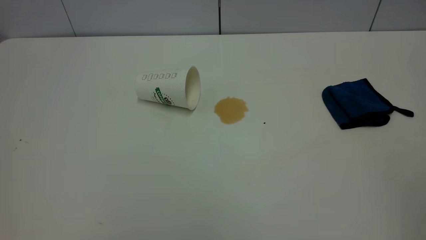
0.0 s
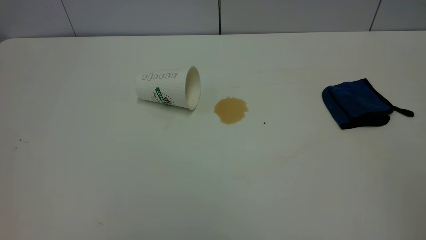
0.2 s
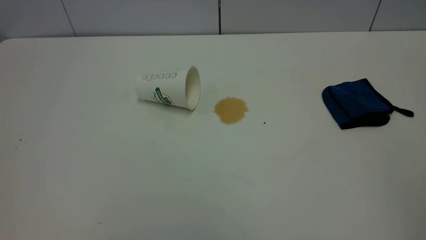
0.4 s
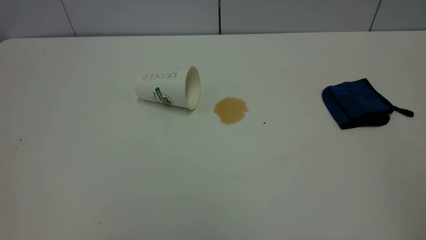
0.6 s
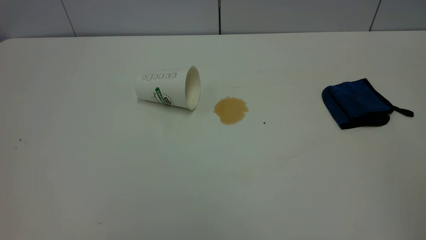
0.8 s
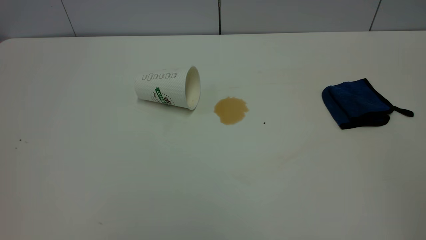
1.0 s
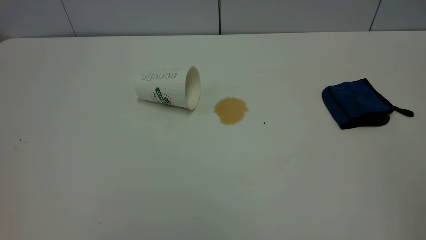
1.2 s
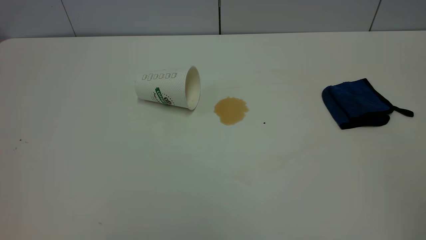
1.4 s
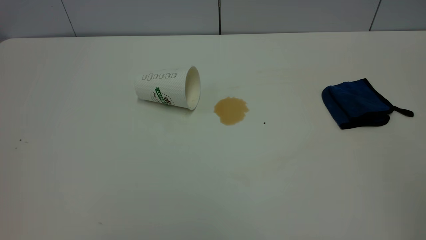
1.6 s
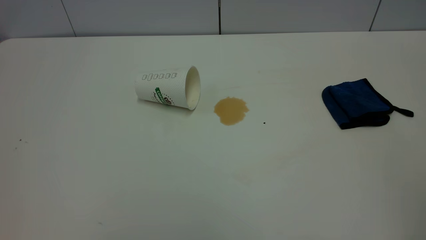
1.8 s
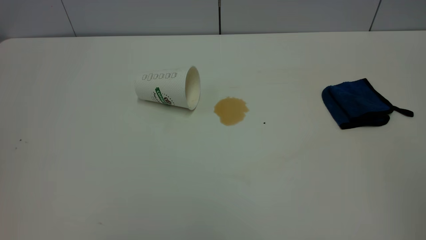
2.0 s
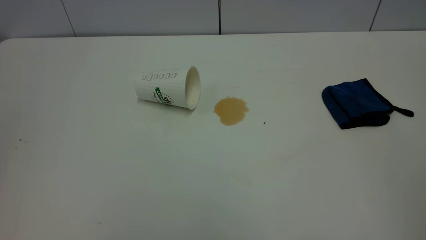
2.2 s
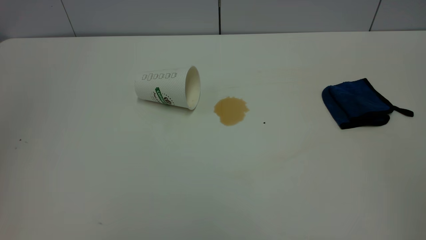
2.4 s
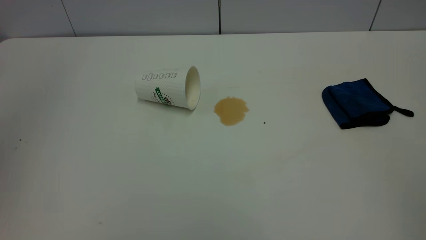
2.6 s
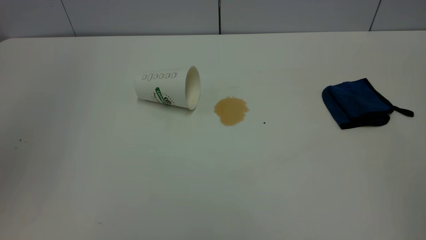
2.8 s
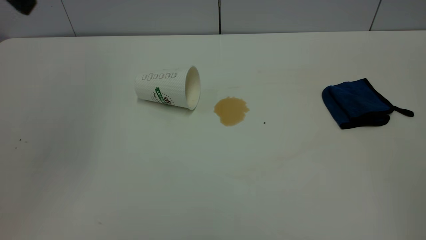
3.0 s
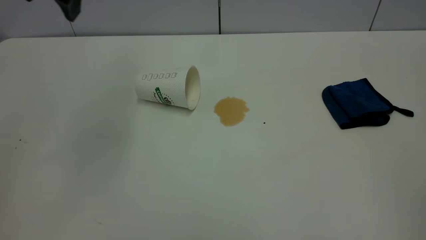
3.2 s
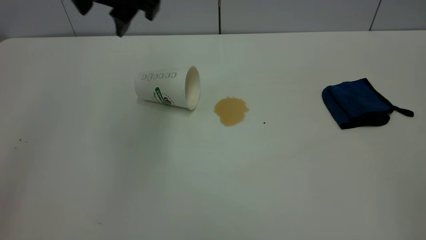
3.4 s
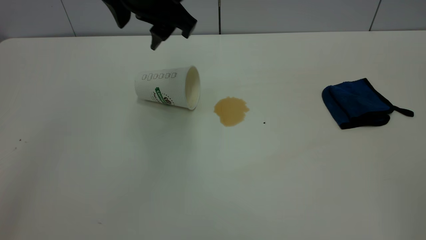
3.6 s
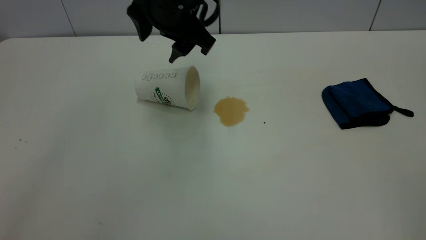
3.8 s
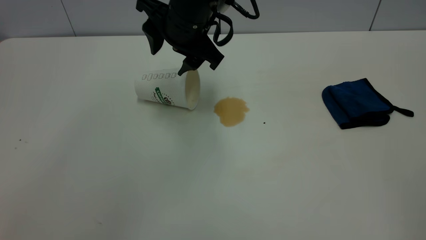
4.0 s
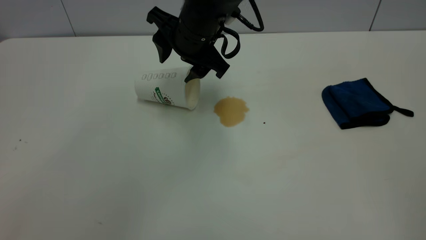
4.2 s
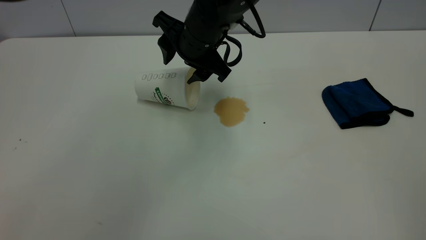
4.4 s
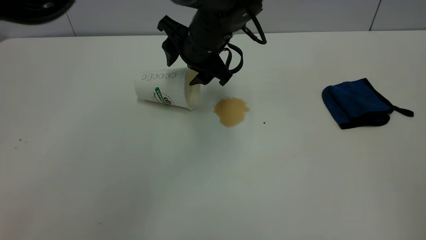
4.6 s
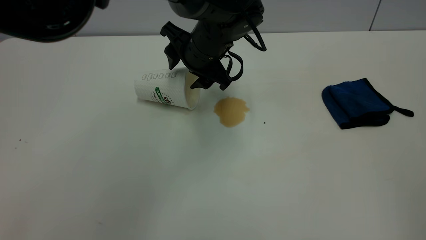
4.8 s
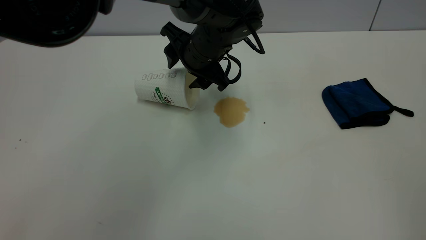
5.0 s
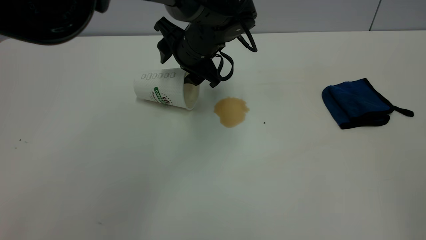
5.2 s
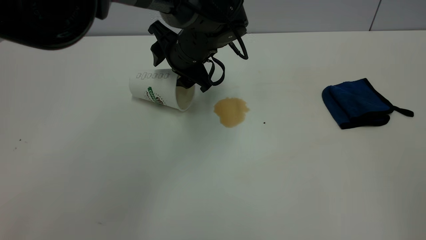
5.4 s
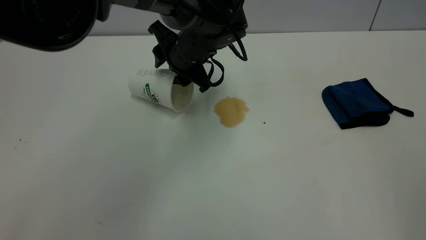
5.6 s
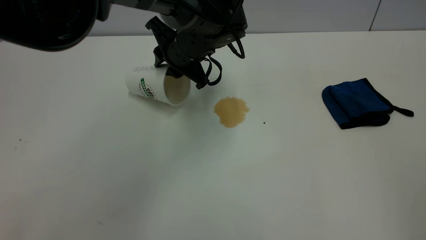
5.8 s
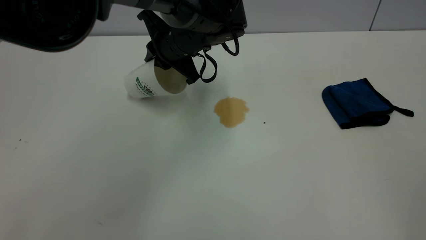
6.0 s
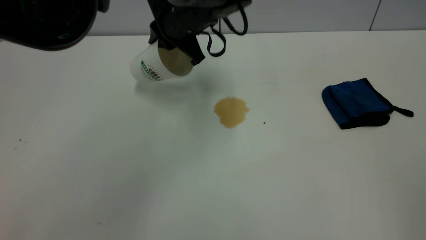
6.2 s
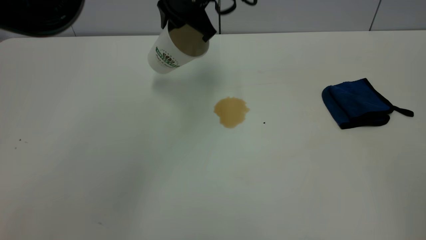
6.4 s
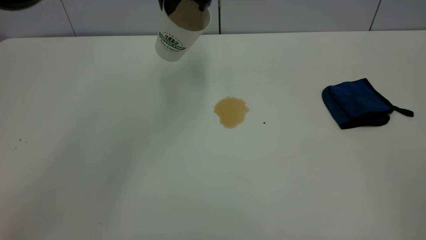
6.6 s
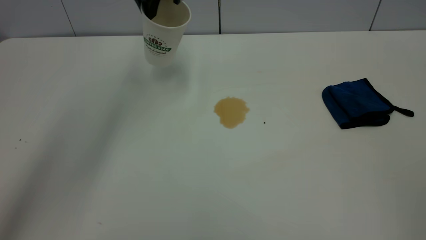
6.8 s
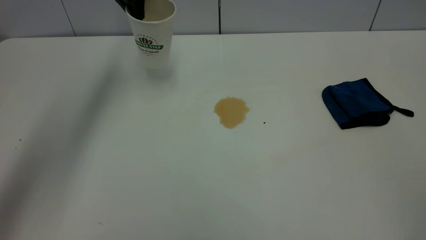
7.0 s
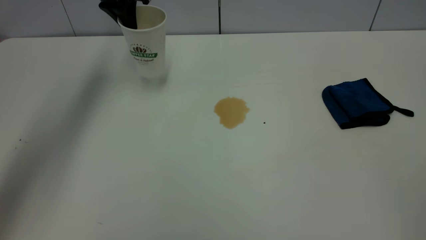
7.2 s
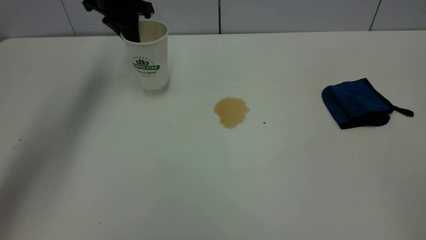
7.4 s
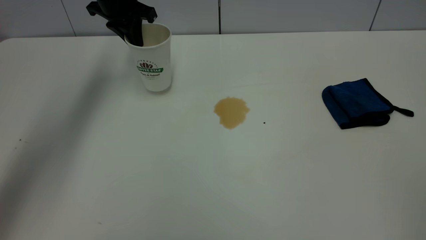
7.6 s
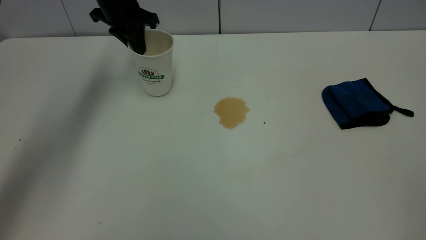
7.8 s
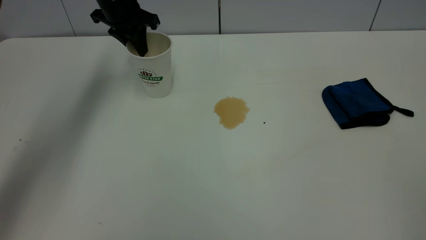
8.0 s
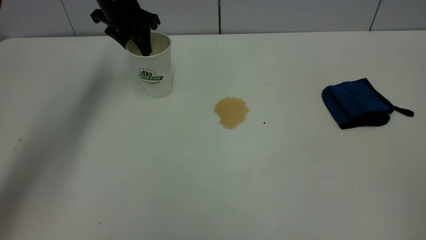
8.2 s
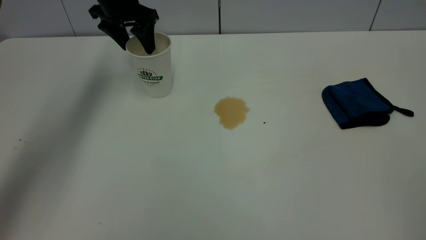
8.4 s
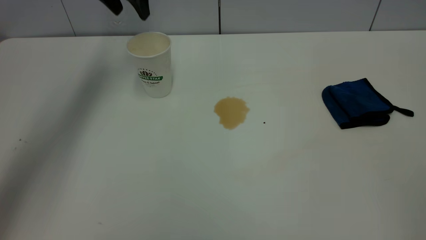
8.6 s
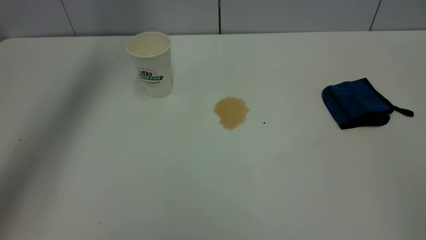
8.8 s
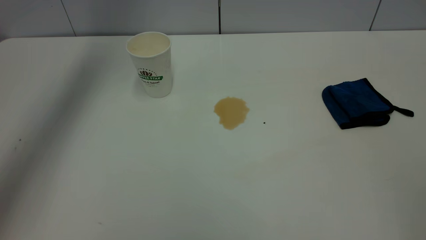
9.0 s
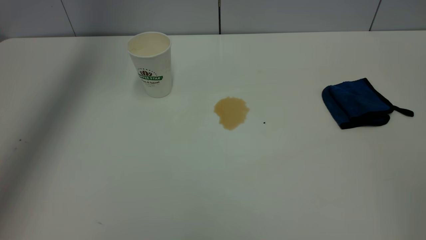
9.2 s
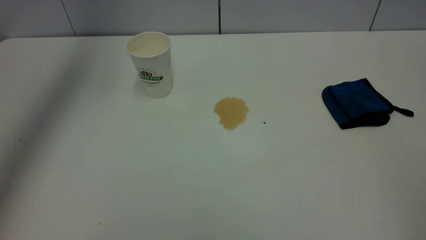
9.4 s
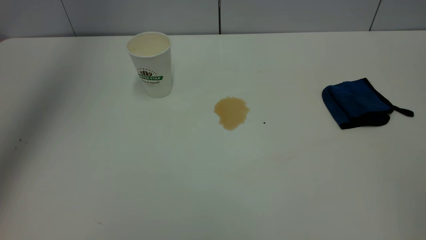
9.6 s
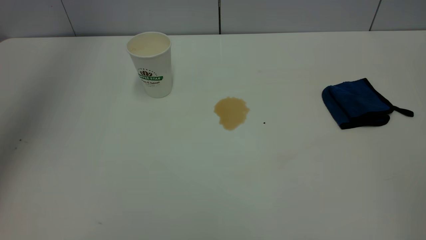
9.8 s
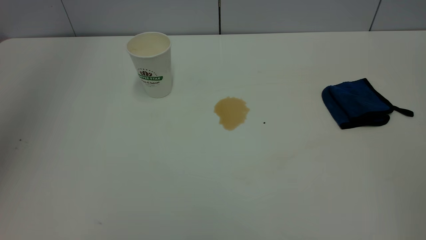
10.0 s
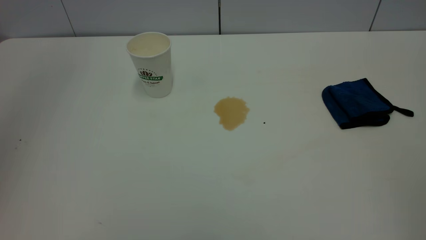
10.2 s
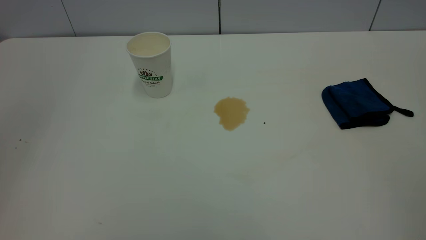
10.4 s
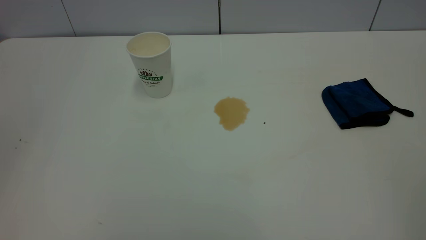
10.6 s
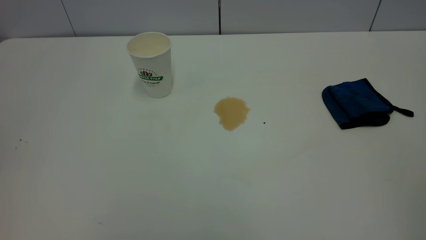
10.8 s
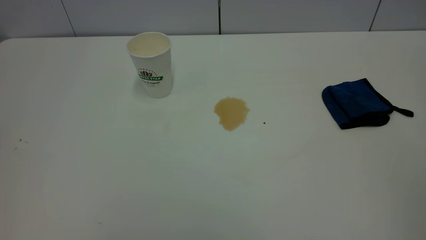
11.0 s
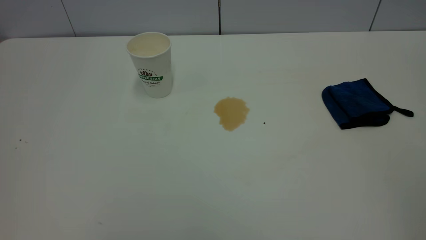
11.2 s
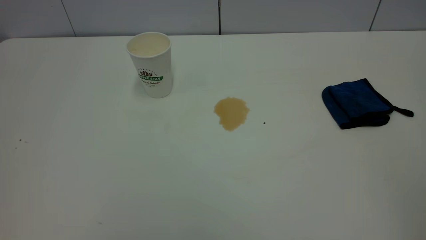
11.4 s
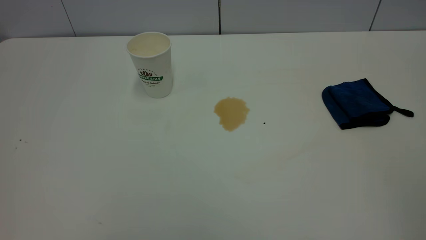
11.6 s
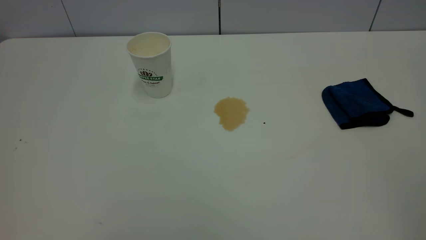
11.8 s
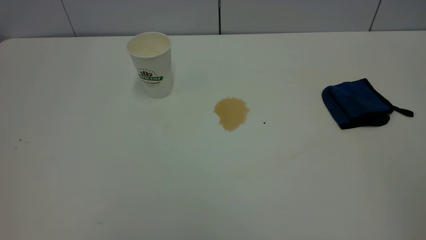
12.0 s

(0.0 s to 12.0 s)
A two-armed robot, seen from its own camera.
Task of the whole recording: the left gripper pick up the fallen cup and place it upright, the right gripper grasp the blue rag and wipe the tea stain on the table, the right gripper put the blue rag back in its original position.
Step, 0.0 s - 8.4 s: Stand the paper cup upright.
0.0 s - 1.6 s: Both grippers stay about where they are.
3.0 s - 4.4 s: The left gripper shifts some 30 cm to the right, downward and forward.
4.4 s - 6.0 s: The left gripper closes its fingers.
6.0 s - 7.6 s: The left gripper goes about 20 cm to the left and forward.
7.6 s - 9.0 s: The left gripper heads upward, covering roughly 20 cm, and opens up.
9.0 s - 10.4 s: The left gripper moves backward, some 35 cm, and closes up.

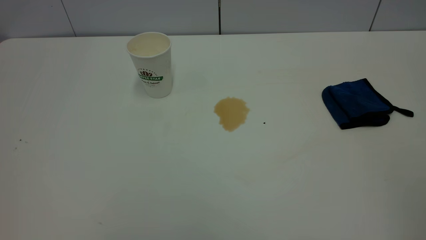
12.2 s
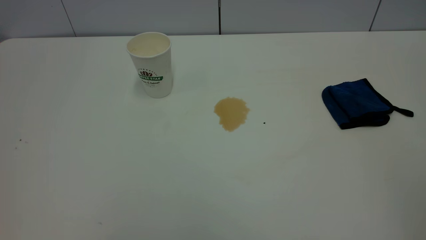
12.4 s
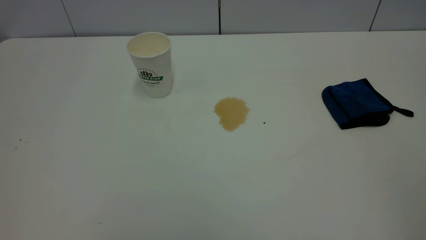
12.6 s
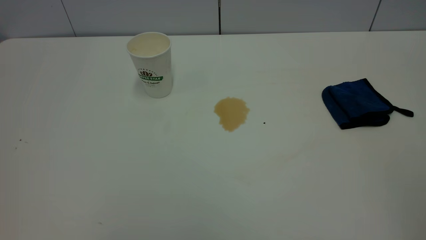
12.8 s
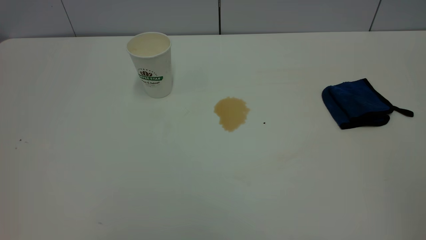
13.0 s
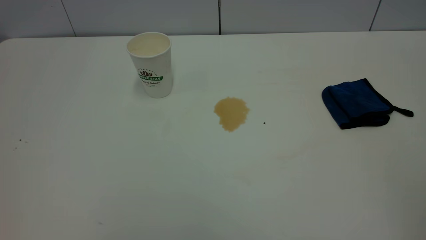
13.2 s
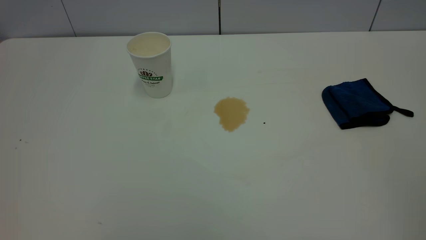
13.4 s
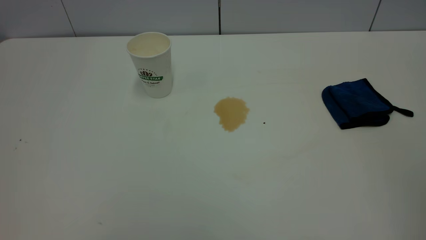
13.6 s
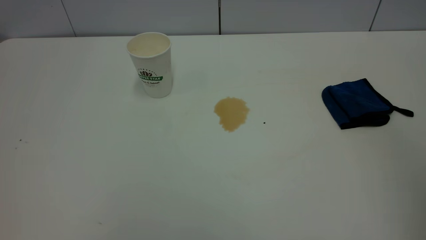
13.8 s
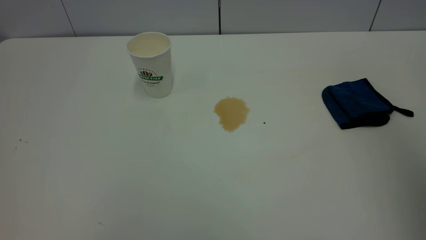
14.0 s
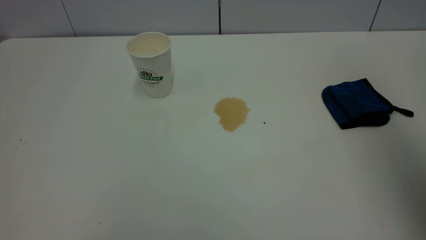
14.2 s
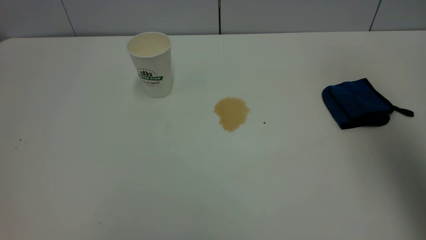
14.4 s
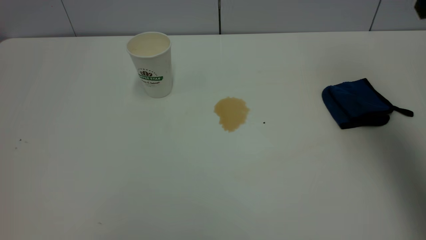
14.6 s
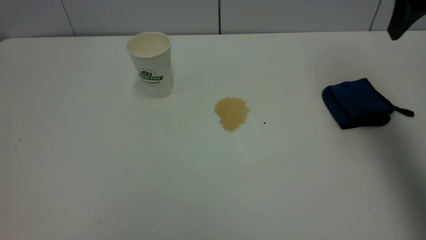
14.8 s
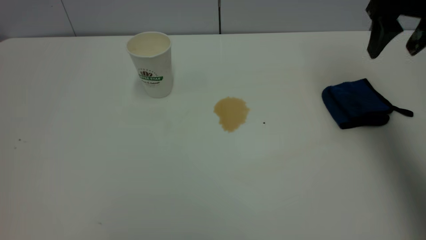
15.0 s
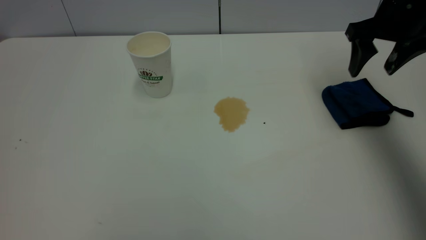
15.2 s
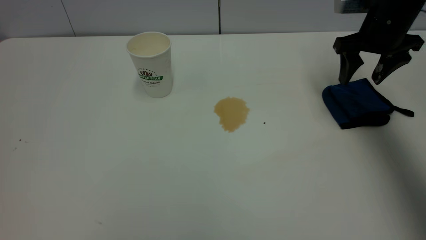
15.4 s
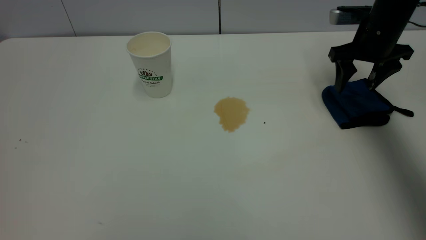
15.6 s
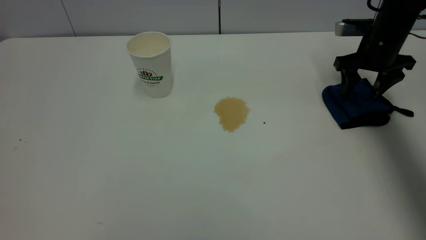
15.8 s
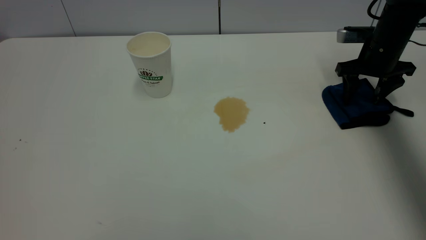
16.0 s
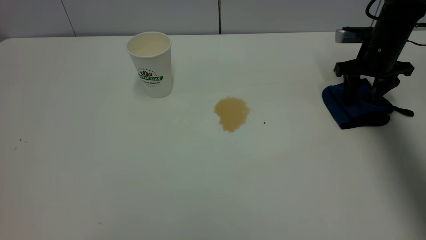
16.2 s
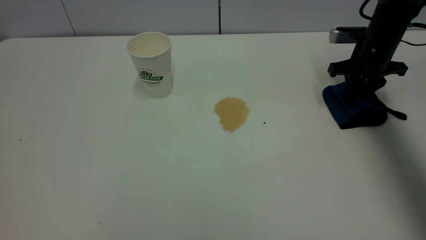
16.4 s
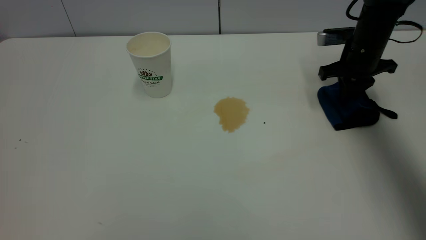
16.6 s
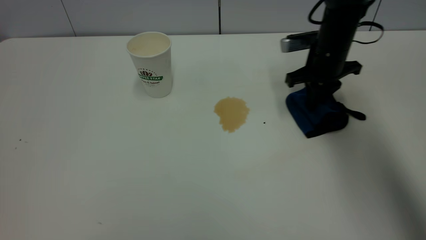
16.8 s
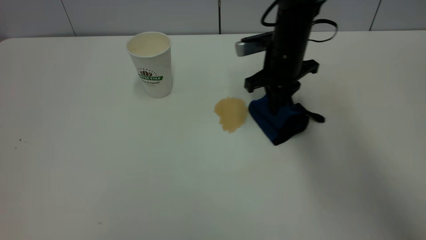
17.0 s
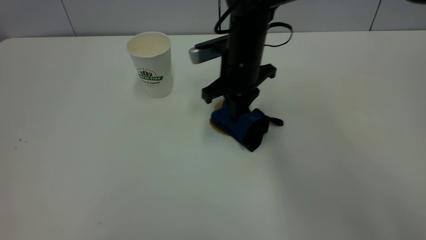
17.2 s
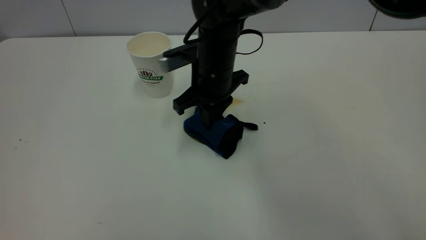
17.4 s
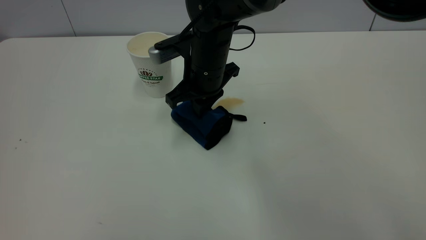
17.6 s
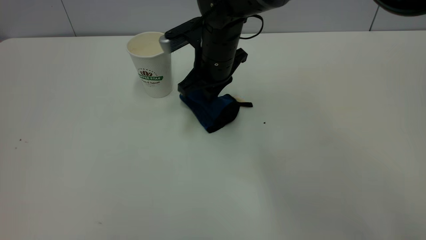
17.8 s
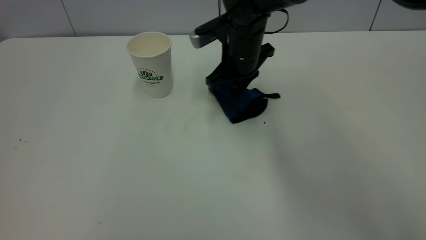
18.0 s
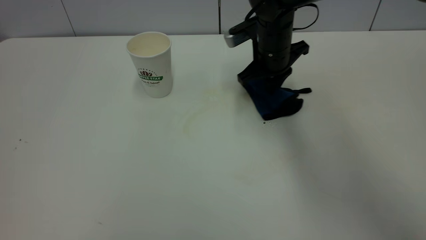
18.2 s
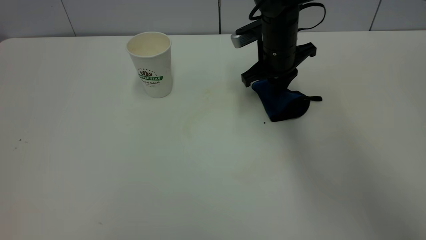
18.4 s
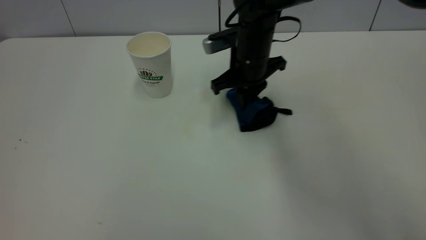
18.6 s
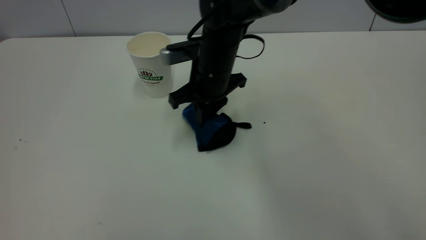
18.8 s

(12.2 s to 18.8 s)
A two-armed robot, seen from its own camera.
Task of the whole recording: the left gripper pick up the fallen cup and place it upright, the right gripper grasp the blue rag and wipe the tea stain on the table, the right gripper put the blue rag back in its original position.
13.8 s - 15.4 s: The right gripper heads forward and downward, covering some 40 cm, and opens its fingers.
15.4 s - 17.2 s: The right gripper travels to the left by roughly 25 cm, and closes its fingers.
17.2 s - 18.8 s: The right gripper goes left and right, some 10 cm each way, reversing 2 times.
